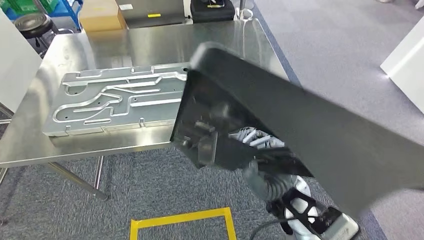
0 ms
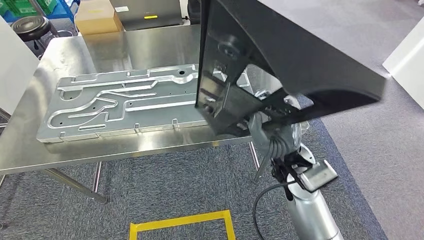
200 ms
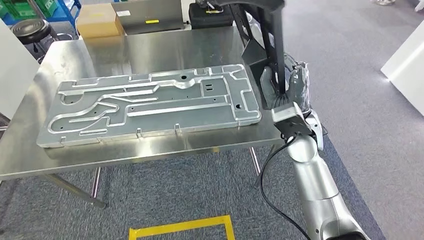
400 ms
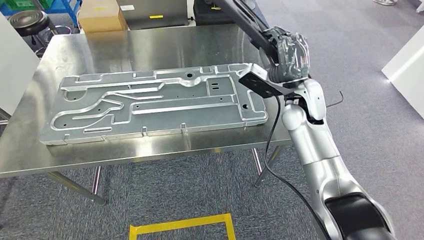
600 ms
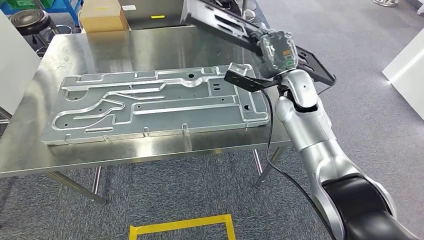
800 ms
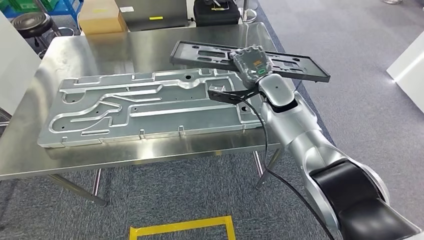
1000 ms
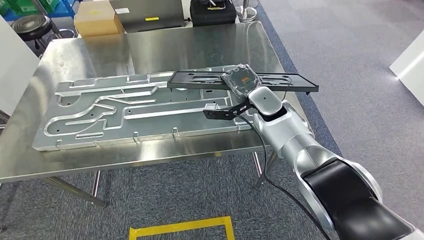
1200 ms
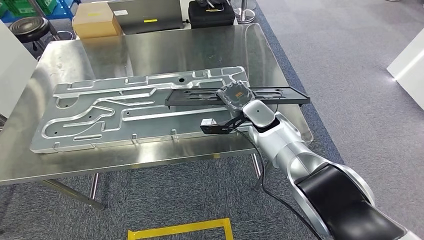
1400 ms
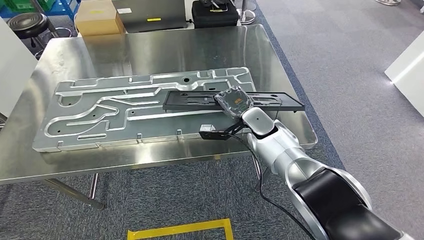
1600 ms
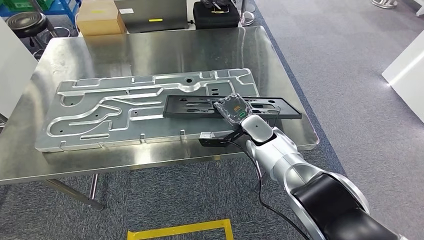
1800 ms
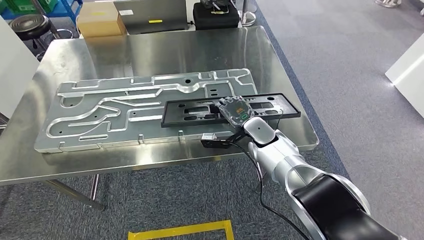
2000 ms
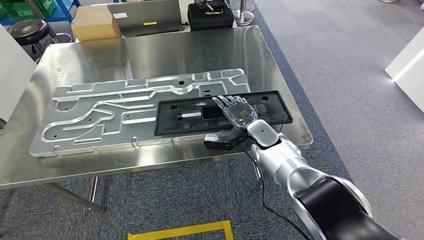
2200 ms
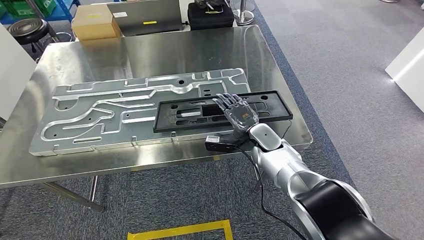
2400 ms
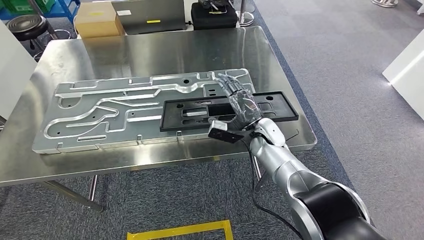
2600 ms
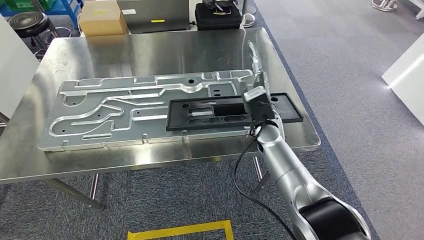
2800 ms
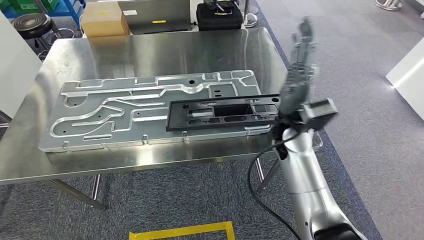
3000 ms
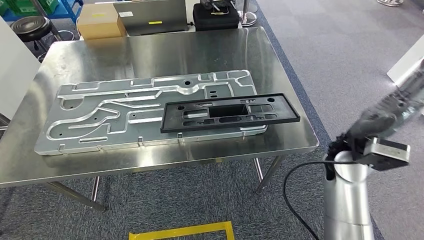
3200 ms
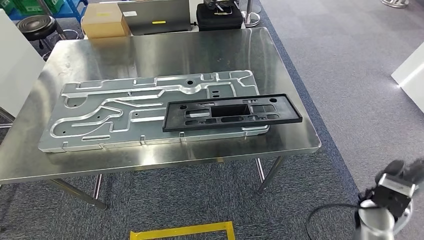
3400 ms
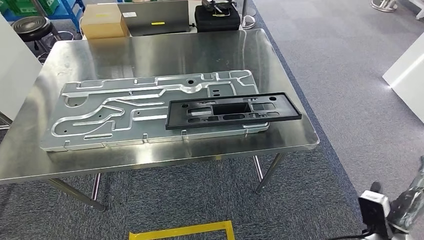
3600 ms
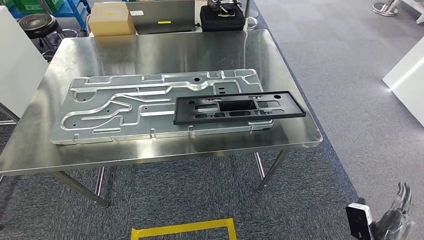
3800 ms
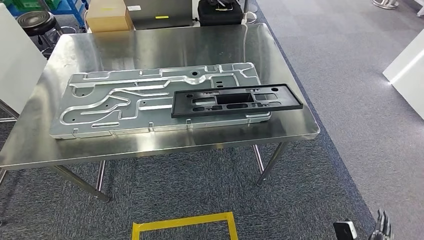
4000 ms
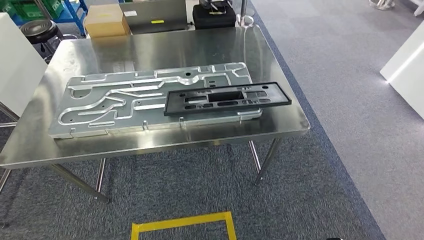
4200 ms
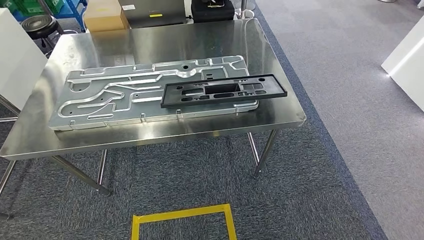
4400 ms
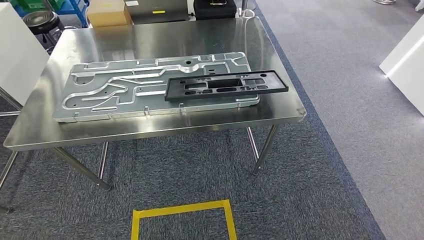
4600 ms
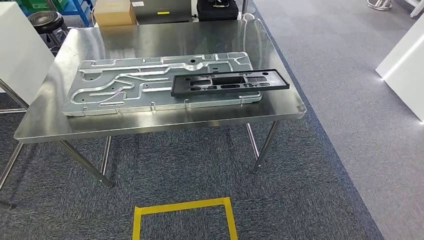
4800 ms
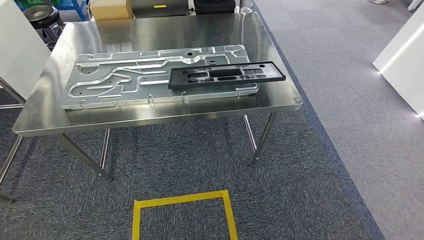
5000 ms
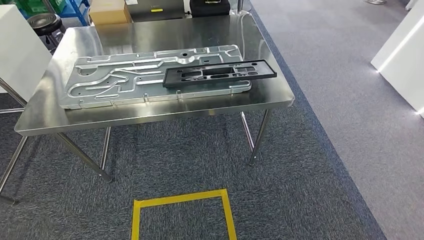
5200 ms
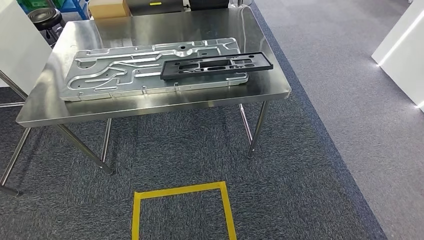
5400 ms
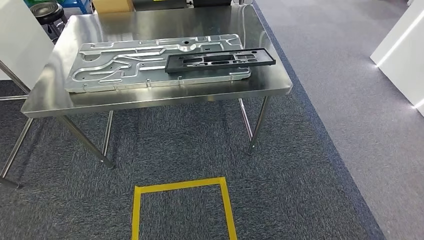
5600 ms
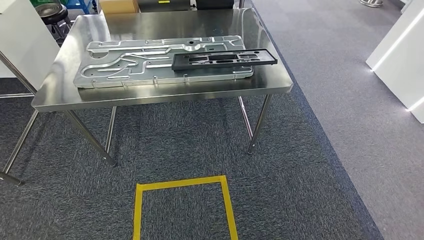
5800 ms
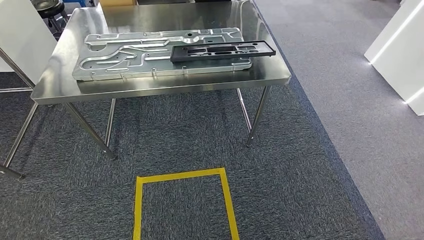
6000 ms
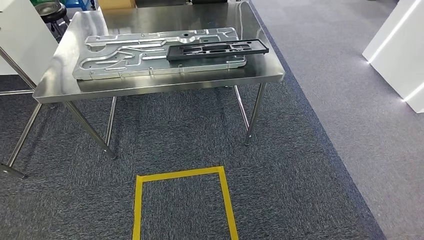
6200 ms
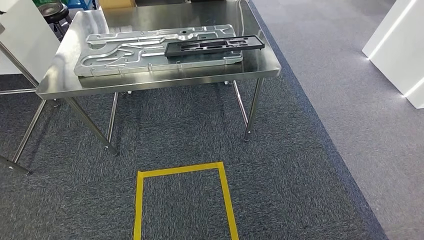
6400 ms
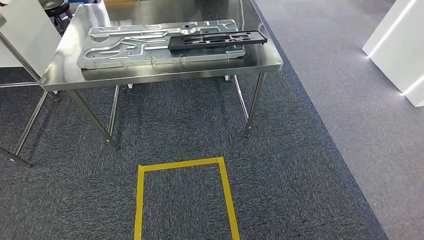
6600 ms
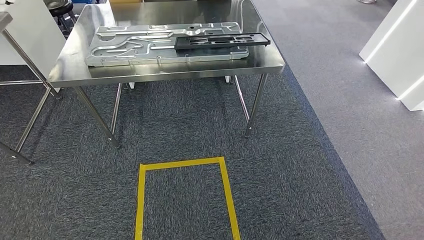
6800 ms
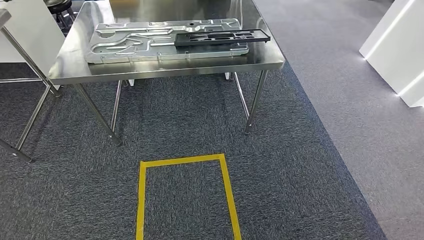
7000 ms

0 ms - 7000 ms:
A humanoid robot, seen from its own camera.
Step, 2800 ms - 5000 ms: Insert the large parts into the corresponding slots on the workbench.
Step, 5400 ms - 6800 ms: Return to the initial position at the shelf.
